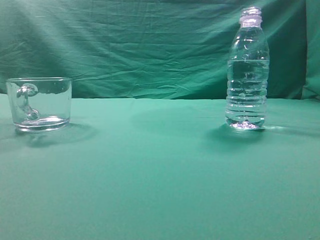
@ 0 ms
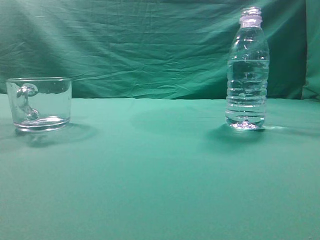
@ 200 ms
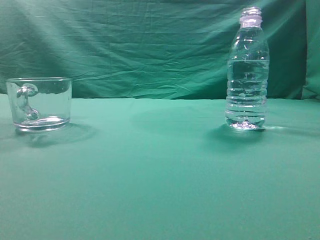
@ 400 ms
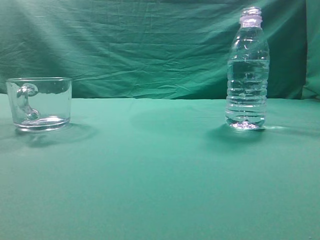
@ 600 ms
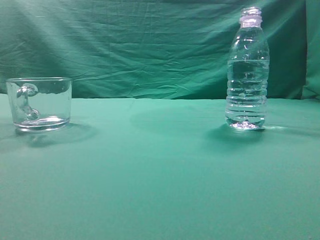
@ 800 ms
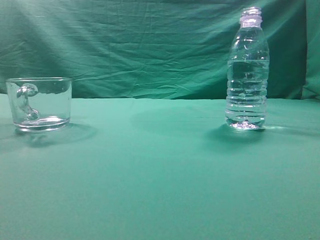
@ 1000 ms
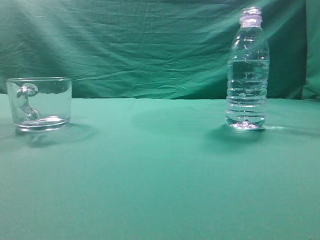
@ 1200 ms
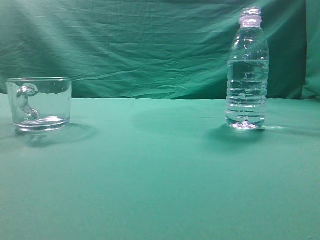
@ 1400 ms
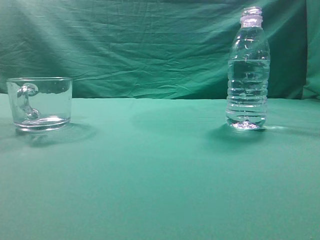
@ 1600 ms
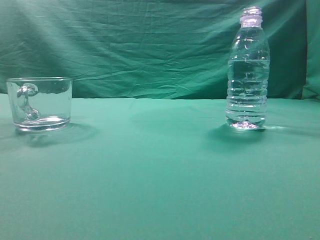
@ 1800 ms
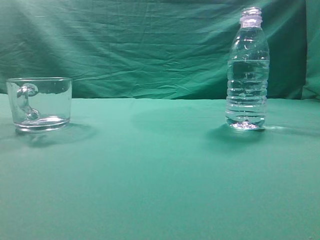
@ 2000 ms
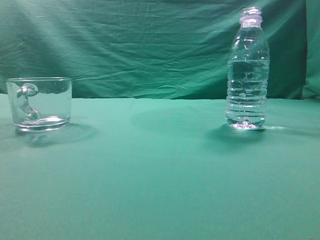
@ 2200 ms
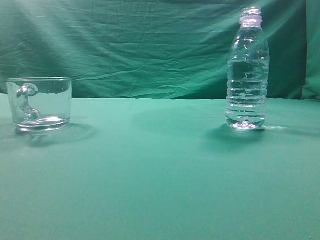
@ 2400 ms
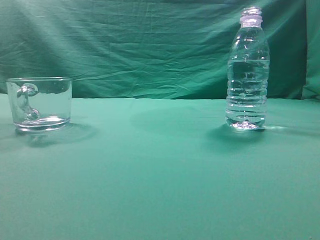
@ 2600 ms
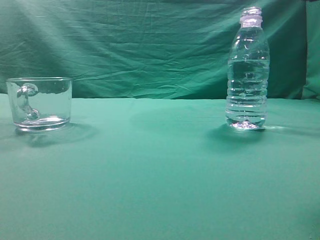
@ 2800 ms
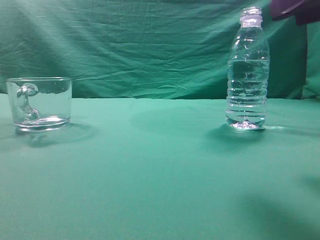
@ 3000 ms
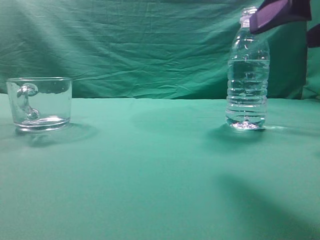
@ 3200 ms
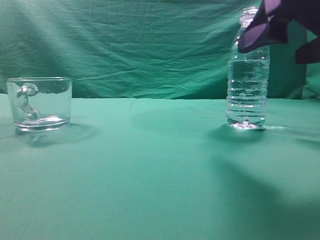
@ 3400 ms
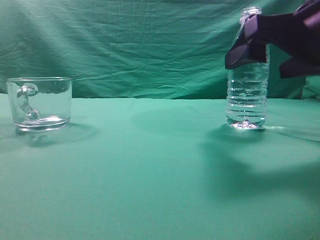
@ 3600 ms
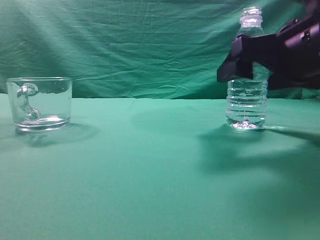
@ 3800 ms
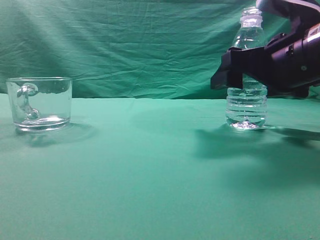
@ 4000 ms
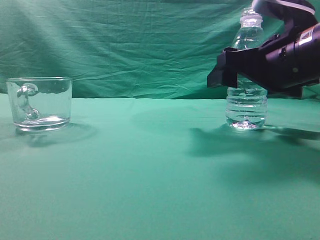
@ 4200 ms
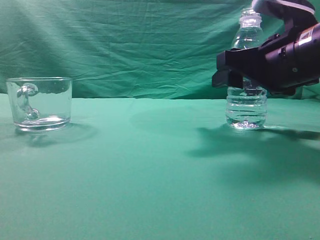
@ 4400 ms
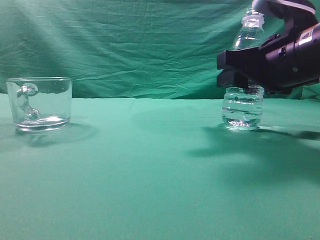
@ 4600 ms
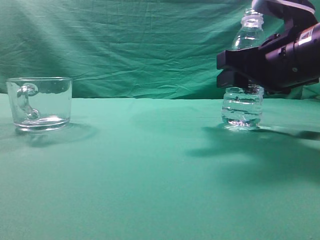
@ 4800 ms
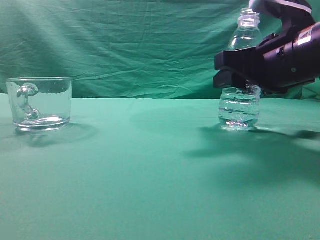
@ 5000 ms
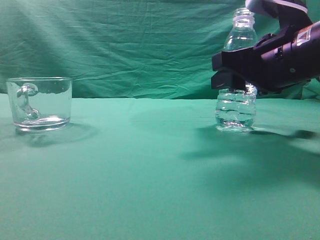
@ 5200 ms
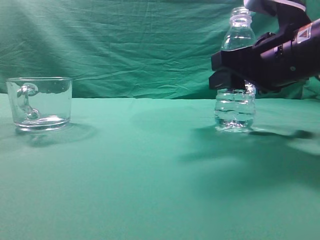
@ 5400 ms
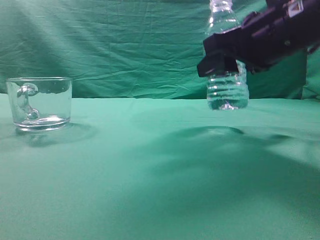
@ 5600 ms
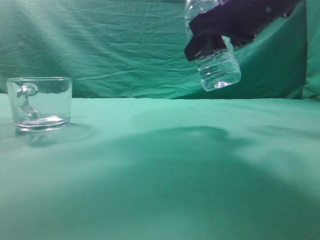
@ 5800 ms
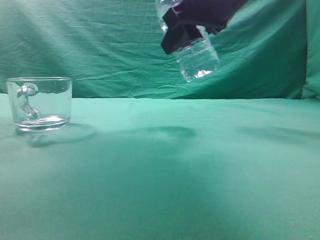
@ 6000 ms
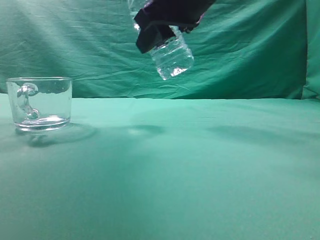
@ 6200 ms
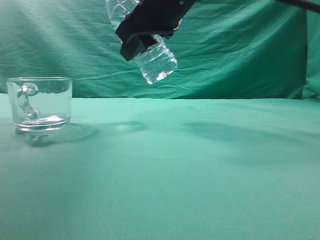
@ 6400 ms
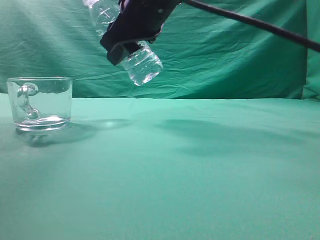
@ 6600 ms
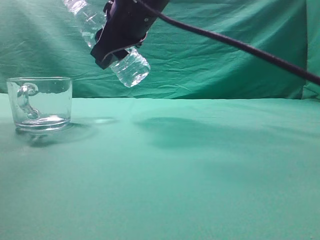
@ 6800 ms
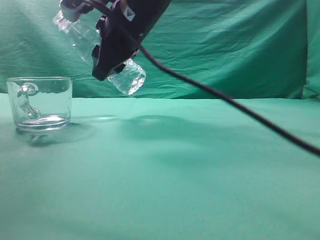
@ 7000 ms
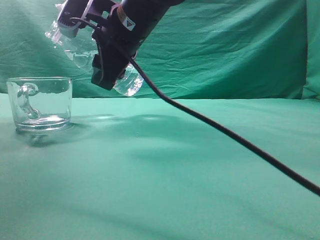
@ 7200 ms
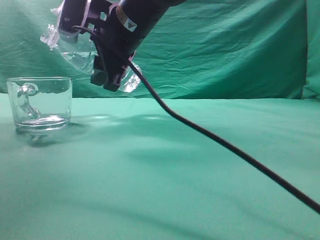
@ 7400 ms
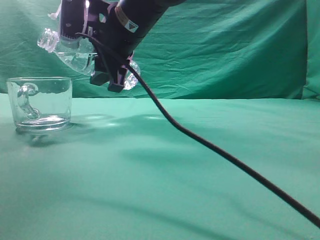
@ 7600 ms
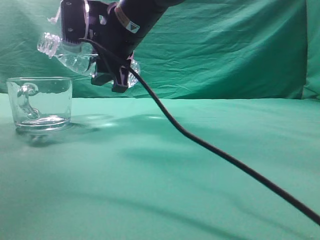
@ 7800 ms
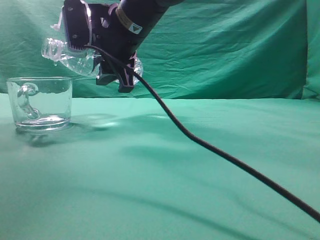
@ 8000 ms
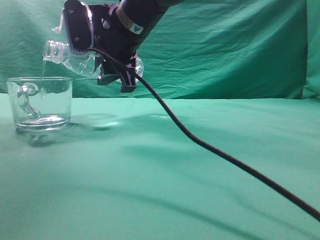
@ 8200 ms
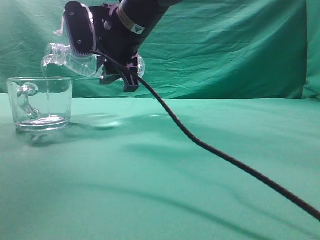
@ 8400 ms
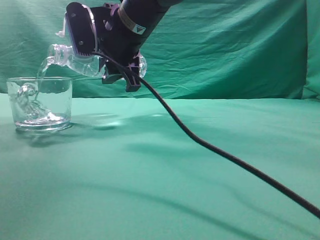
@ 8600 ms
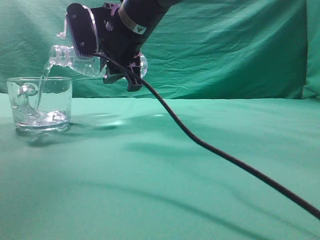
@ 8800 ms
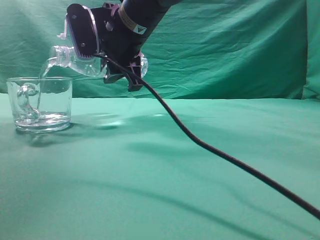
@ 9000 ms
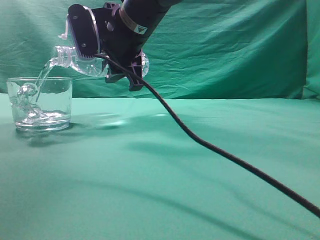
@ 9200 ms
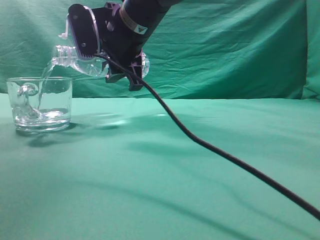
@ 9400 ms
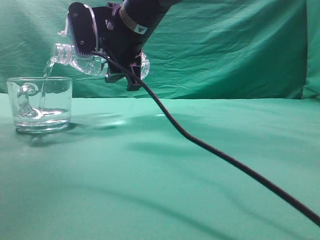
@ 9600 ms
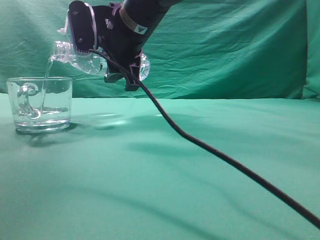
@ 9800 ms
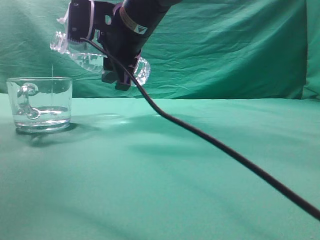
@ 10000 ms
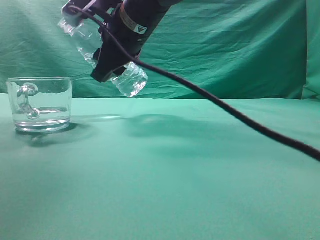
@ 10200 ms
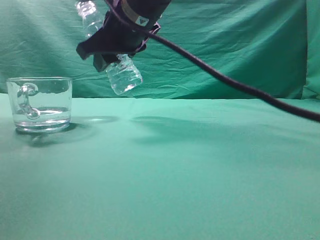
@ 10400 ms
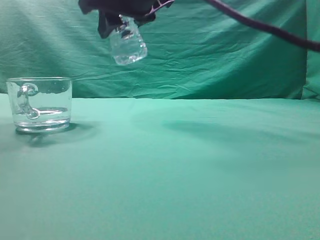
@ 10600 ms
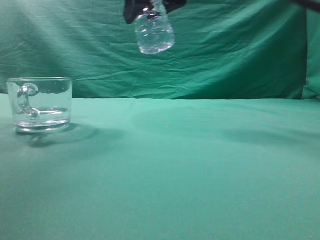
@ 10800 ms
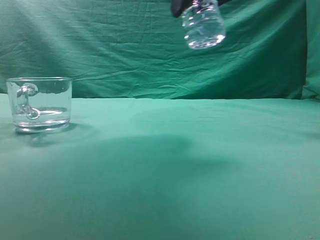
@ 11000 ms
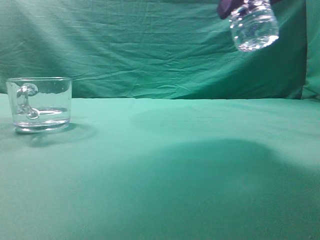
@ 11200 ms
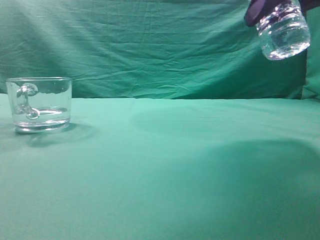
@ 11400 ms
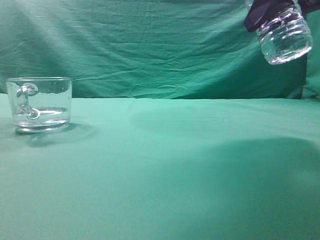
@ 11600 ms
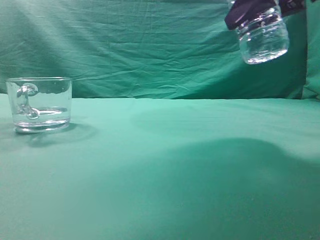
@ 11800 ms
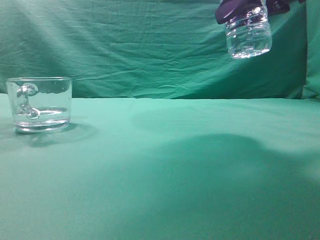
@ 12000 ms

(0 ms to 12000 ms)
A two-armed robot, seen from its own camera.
Task of the whole recording: pick up the water bottle and pour the water in it into the glass.
Step, 0 ms - 5600 ms: Grasp the mineral water bottle.
Step, 5800 ms - 10200 ms: Pour water into the teacup.
1600 ms - 3000 ms: The right gripper is displaced forward and to the left by approximately 15 cm, and opens its fingers.
3000 ms - 4400 ms: The right gripper is displaced forward and downward by roughly 15 cm.
4400 ms - 6000 ms: The right gripper heads upward and to the left, covering roughly 15 cm.
6000 ms - 7600 ms: The right gripper travels to the left and forward by roughly 15 cm.
7600 ms - 9000 ms: The grippers make only small movements.
10400 ms - 12000 ms: The right gripper moves to the right, some 20 cm.

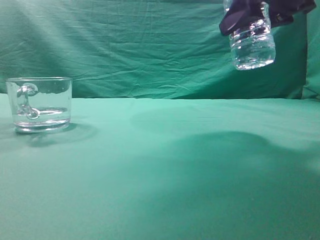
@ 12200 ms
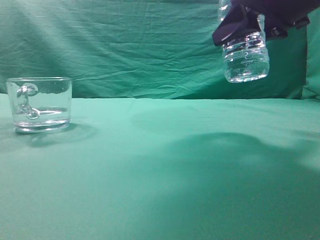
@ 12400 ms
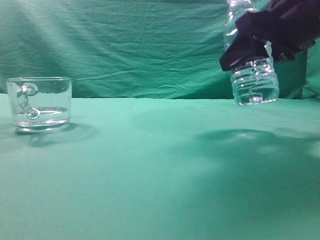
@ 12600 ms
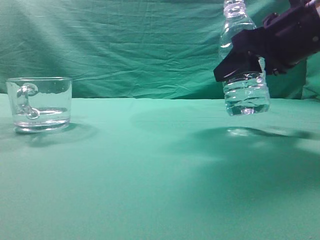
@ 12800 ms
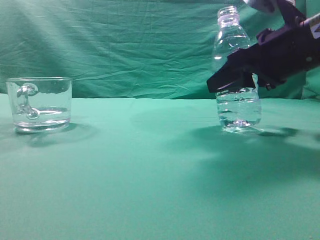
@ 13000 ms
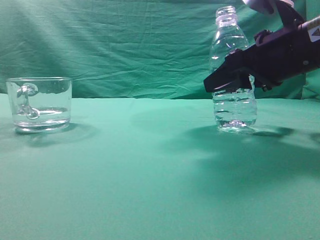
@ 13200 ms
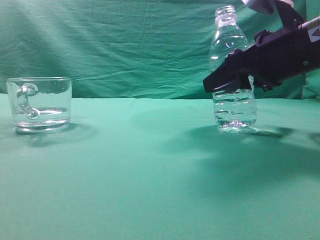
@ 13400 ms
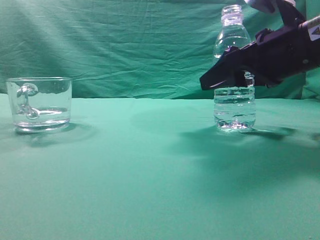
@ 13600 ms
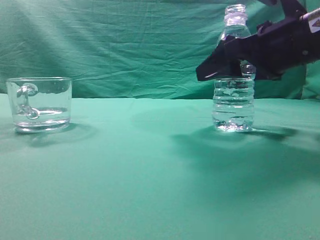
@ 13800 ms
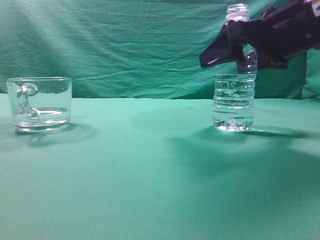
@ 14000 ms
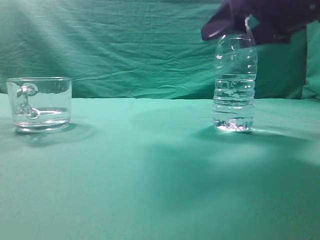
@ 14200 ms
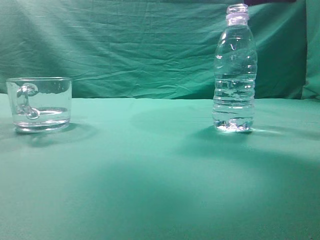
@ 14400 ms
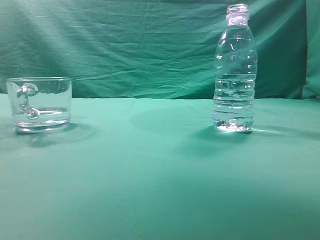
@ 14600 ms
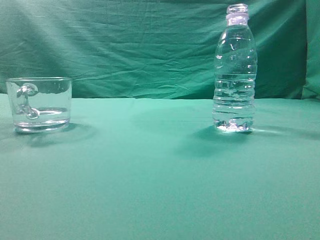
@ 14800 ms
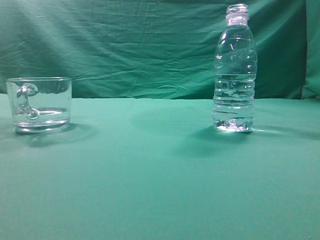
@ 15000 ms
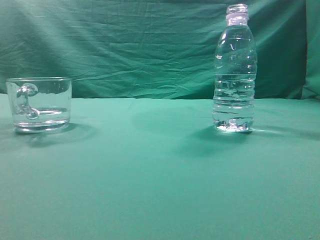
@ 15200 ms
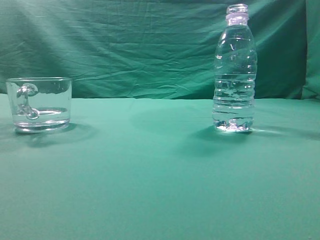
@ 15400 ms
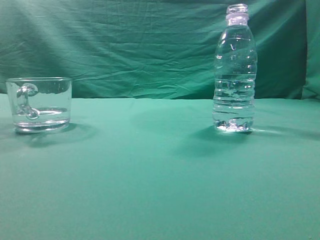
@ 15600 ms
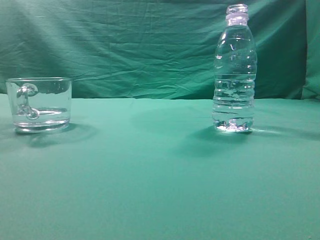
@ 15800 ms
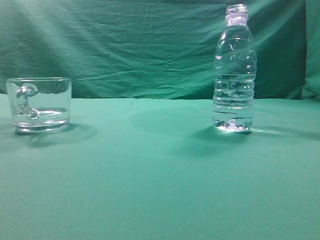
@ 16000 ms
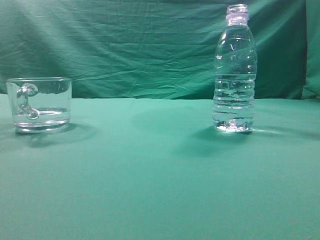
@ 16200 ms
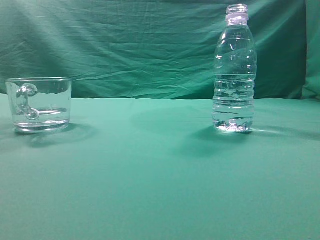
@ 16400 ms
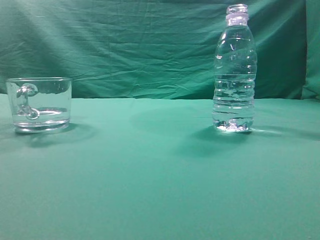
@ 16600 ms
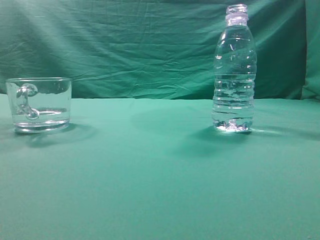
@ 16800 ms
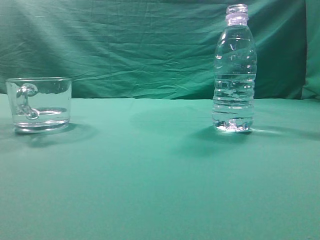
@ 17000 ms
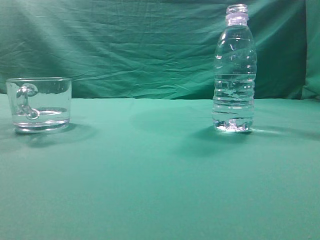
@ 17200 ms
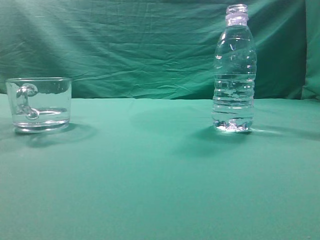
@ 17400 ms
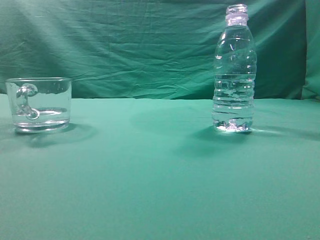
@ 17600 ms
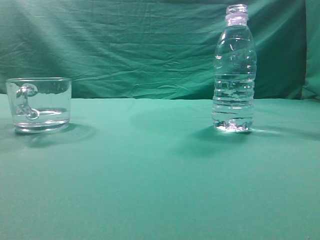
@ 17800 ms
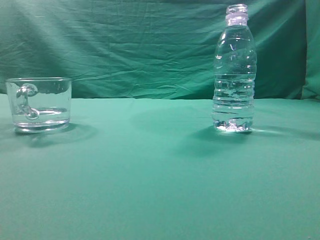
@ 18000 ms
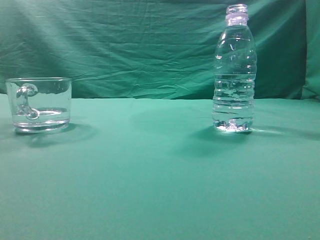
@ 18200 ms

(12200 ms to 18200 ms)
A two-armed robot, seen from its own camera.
Task of the whole recording: pick up the water bottle and pour the water in it into the glass.
12200 ms - 13800 ms: The right gripper travels downward by approximately 10 cm, and opens.
13800 ms - 15200 ms: The right gripper goes about 30 cm upward and backward, and closes up.
